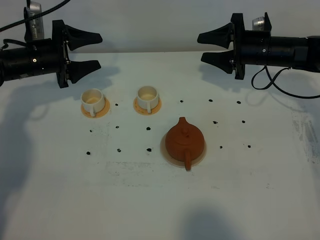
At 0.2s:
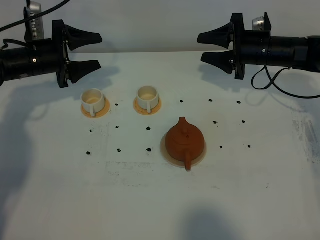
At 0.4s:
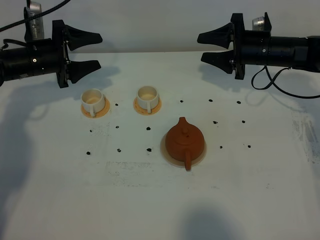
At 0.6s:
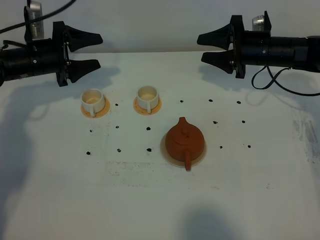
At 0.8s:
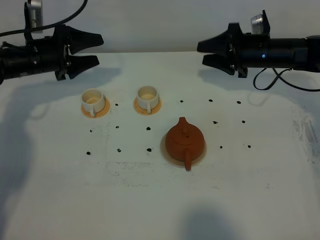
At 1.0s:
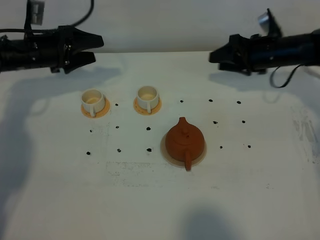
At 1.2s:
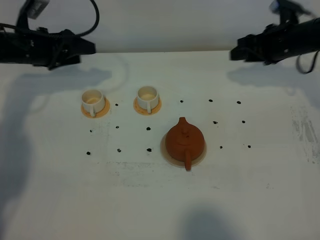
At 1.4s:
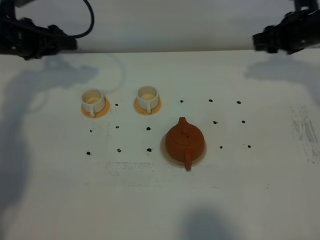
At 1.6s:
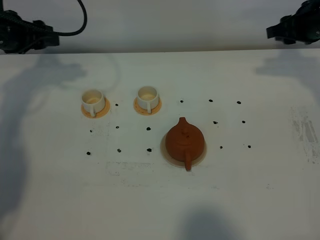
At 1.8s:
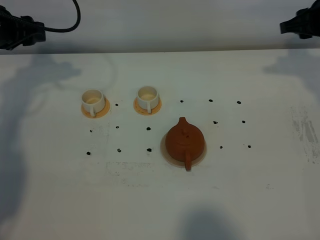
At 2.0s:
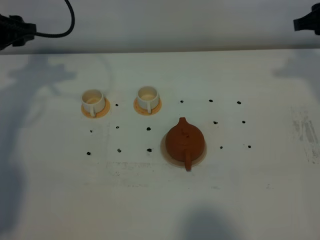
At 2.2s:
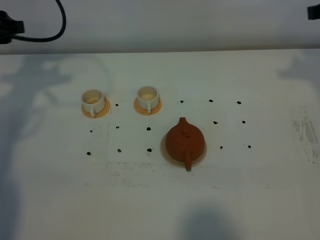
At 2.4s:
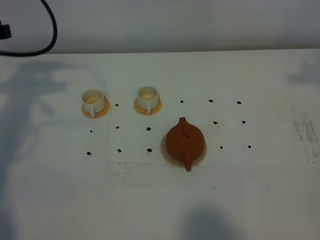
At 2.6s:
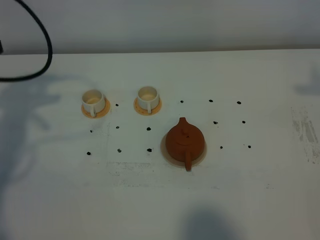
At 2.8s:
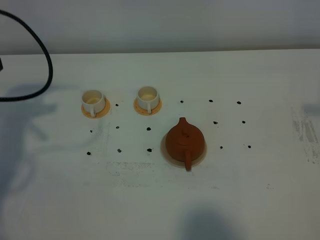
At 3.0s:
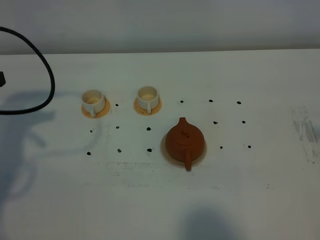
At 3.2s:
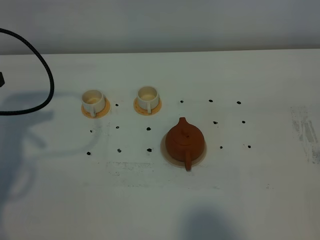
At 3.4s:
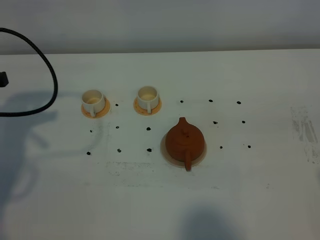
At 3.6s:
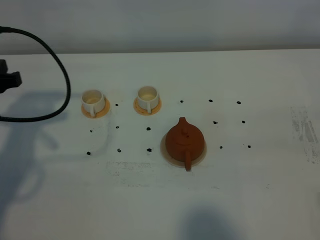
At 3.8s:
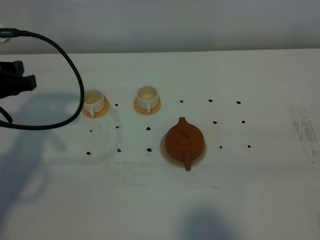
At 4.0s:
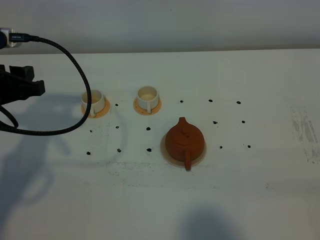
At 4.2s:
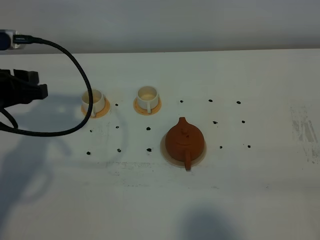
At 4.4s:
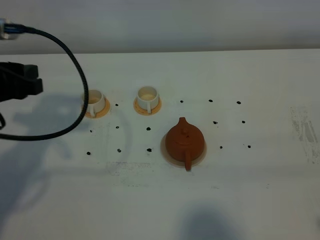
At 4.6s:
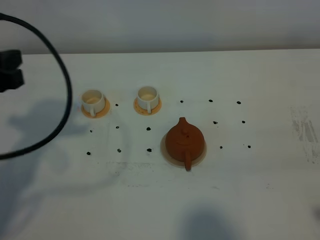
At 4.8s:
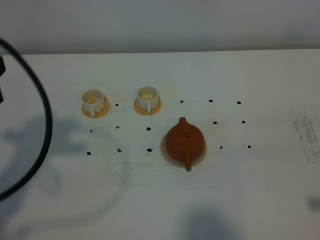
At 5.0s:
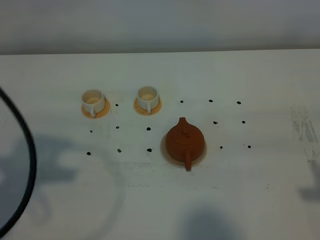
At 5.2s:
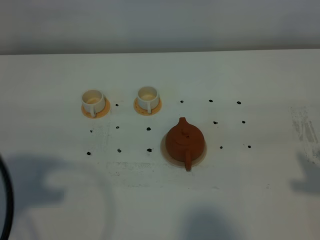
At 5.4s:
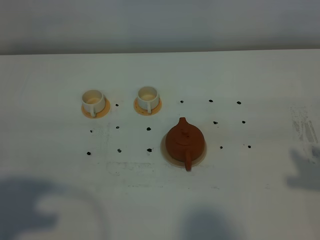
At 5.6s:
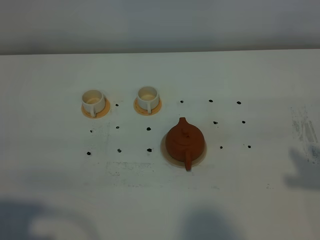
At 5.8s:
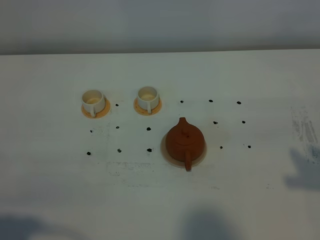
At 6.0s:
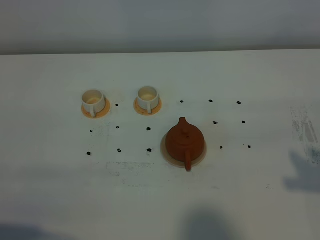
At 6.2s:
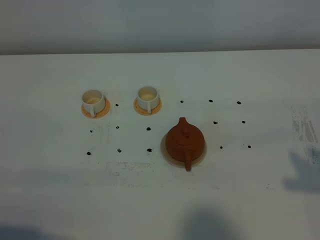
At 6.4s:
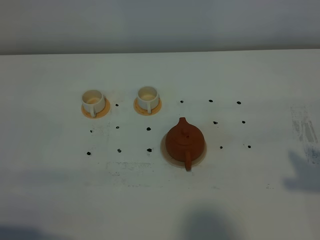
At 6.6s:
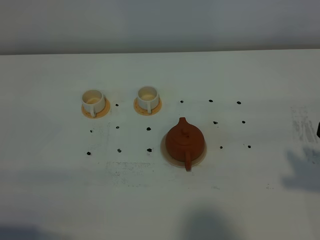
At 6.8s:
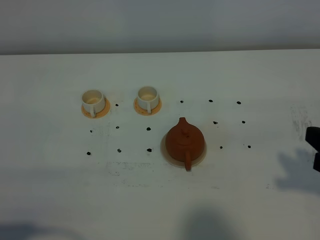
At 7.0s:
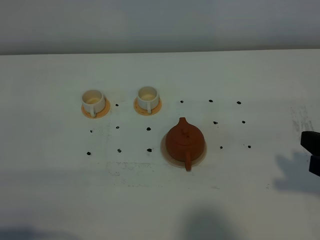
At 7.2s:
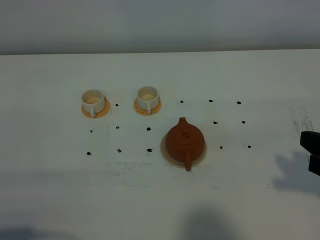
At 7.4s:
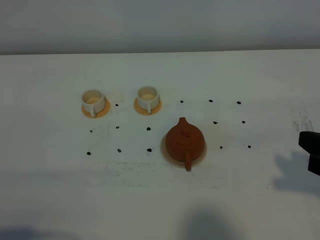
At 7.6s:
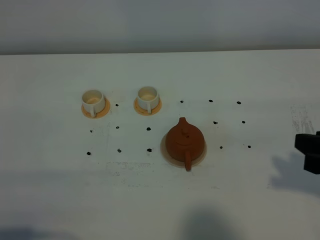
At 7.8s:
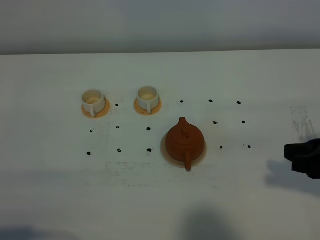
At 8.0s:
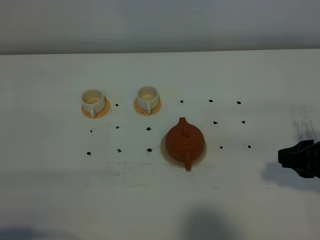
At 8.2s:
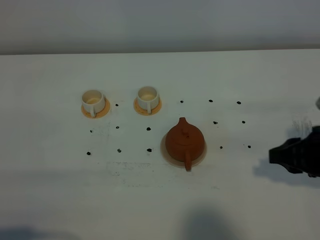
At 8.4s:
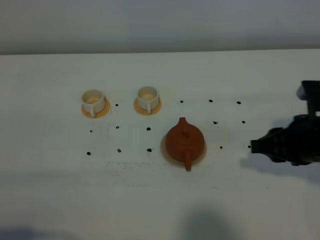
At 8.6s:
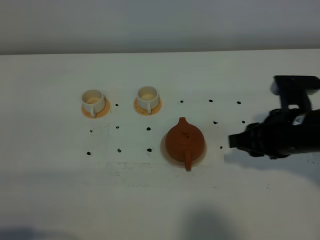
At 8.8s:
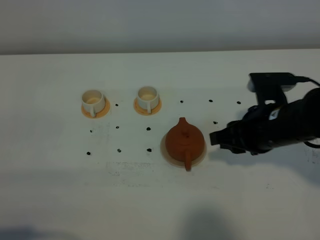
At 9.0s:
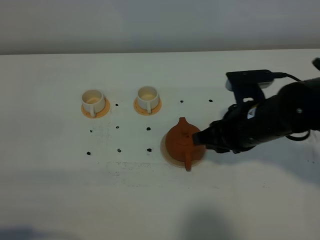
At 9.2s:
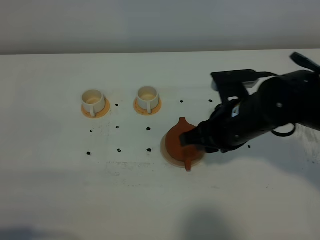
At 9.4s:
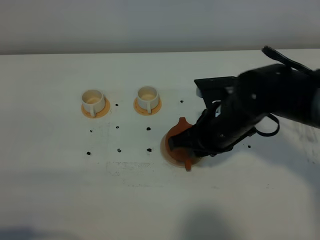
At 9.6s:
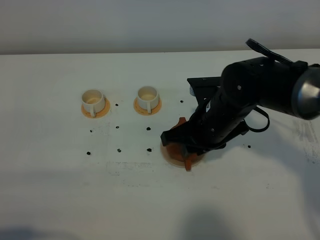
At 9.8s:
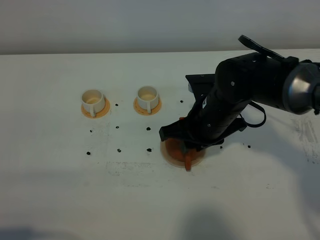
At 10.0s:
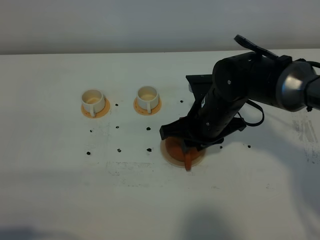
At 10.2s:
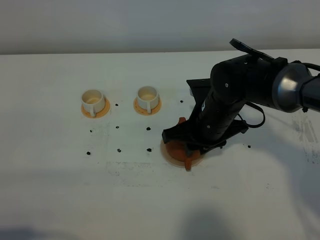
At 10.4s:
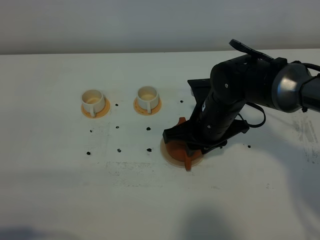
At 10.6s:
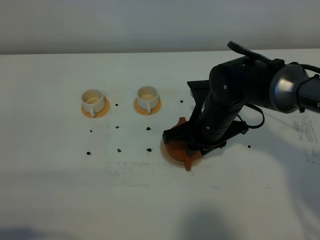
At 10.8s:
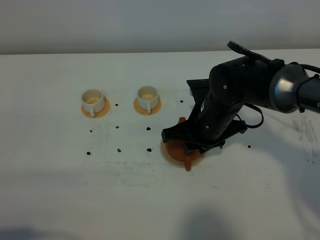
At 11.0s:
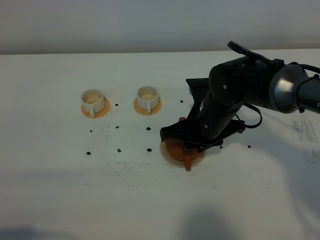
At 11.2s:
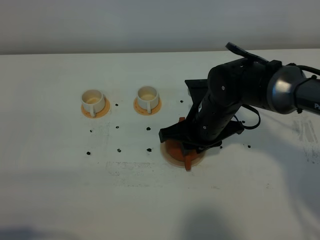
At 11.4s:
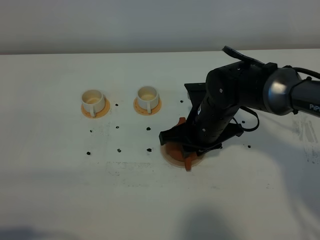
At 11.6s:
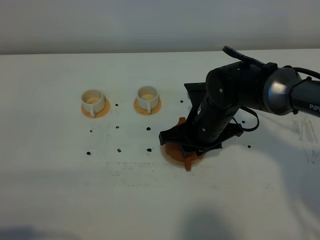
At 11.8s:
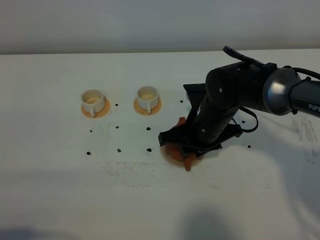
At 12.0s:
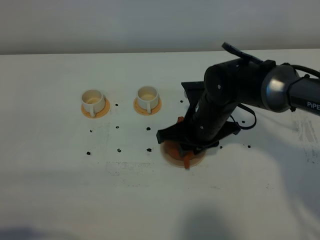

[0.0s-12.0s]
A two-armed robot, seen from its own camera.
Task of the whole recording: grasp the brown teapot and pour the tea into the two white teacups one by one, put the brown teapot back in its original place.
0.0s to 1.6s: The left gripper shifts approximately 10 cm upward, while the right gripper goes about 10 cm upward and to the right.
1.6s to 3.0s: The right gripper is displaced backward and upward by about 35 cm, while the left gripper moves backward, some 15 cm.
3.0s to 4.4s: The left gripper goes approximately 5 cm to the right.
4.4s to 6.0s: The left gripper shifts approximately 25 cm backward, and closes its fingers; the right gripper shifts some 10 cm forward.
6.0s to 7.6s: The grippers move only a little.
7.6s to 9.0s: The right gripper travels to the left, forward and downward by about 20 cm.
9.0s to 10.4s: The right gripper travels to the left by approximately 5 cm.
10.4s to 12.0s: There are only small adjustments of the grippers.

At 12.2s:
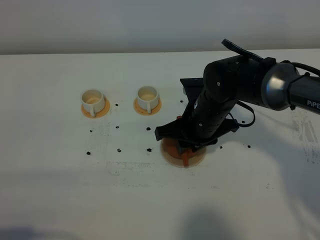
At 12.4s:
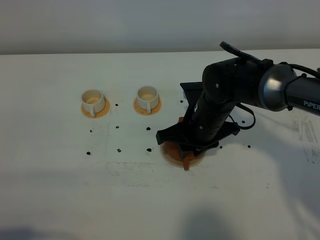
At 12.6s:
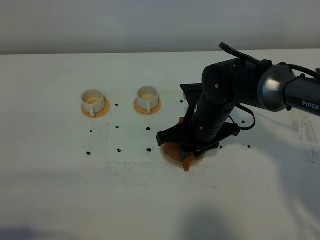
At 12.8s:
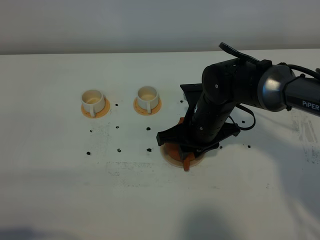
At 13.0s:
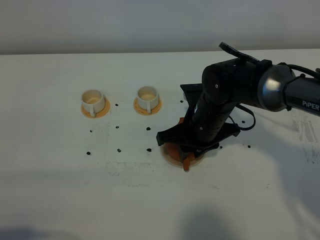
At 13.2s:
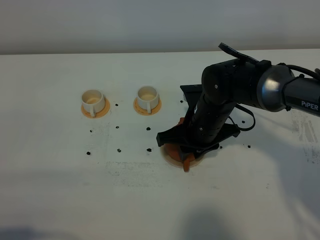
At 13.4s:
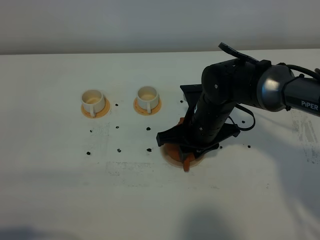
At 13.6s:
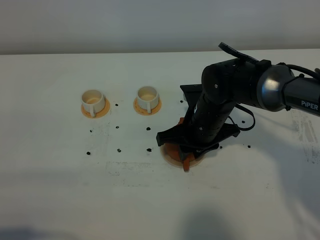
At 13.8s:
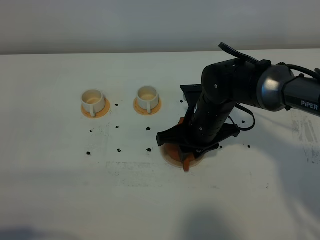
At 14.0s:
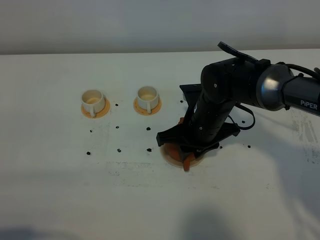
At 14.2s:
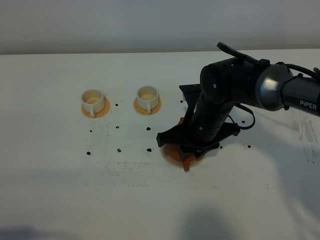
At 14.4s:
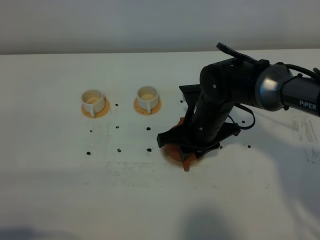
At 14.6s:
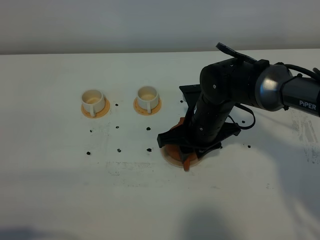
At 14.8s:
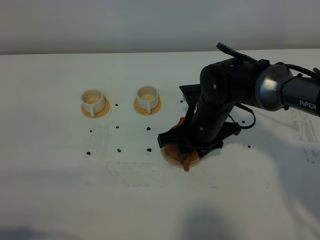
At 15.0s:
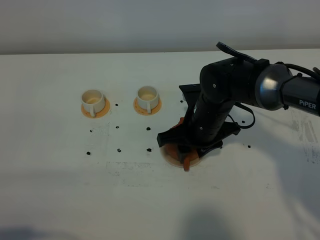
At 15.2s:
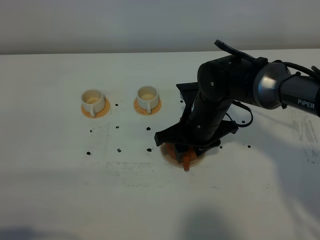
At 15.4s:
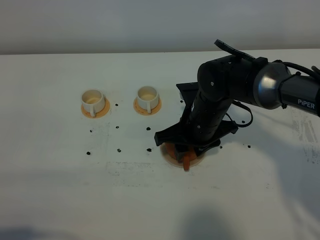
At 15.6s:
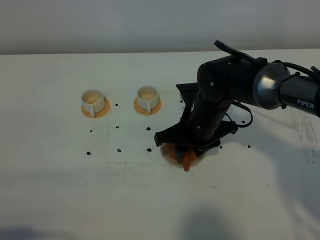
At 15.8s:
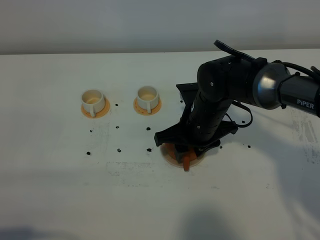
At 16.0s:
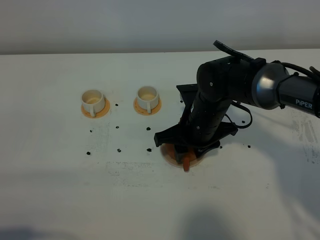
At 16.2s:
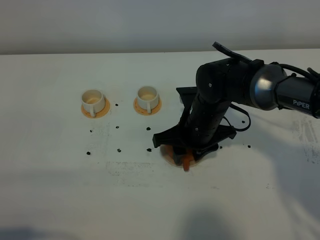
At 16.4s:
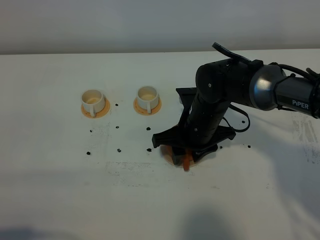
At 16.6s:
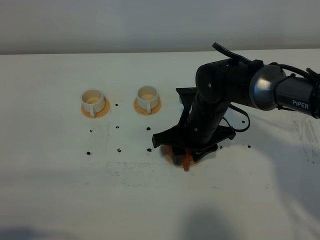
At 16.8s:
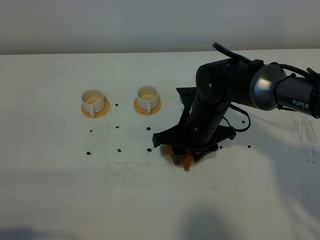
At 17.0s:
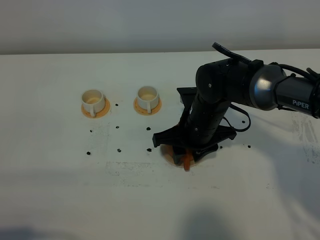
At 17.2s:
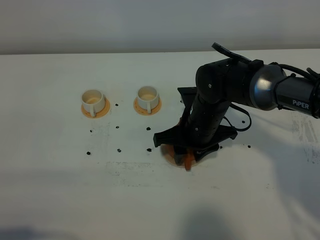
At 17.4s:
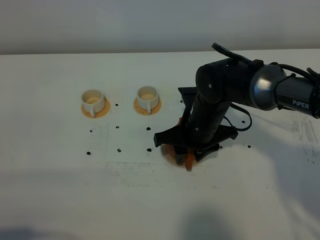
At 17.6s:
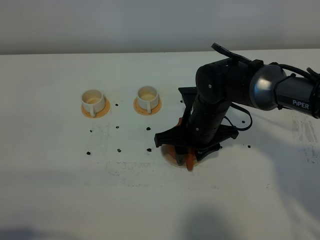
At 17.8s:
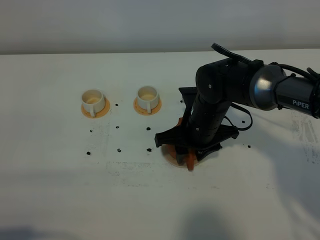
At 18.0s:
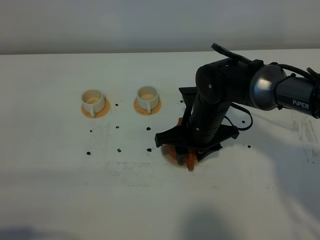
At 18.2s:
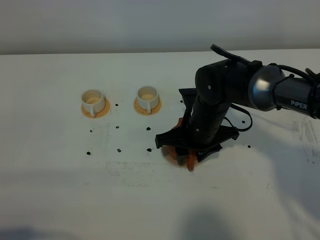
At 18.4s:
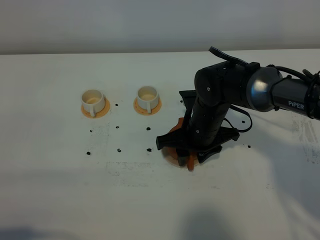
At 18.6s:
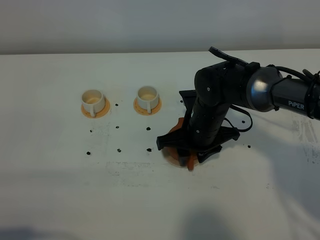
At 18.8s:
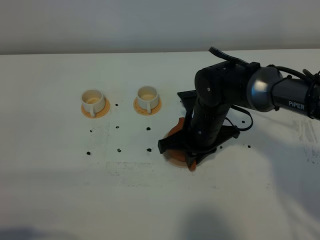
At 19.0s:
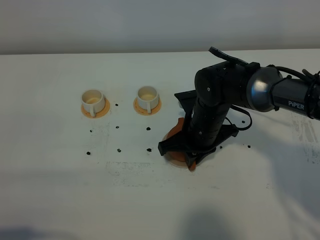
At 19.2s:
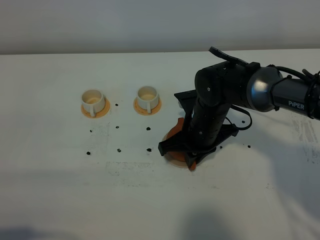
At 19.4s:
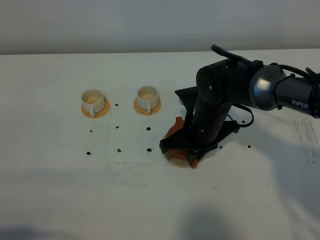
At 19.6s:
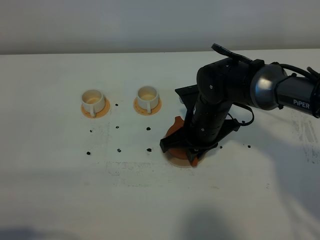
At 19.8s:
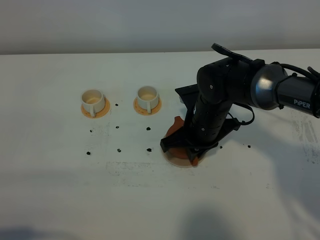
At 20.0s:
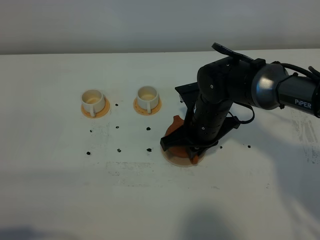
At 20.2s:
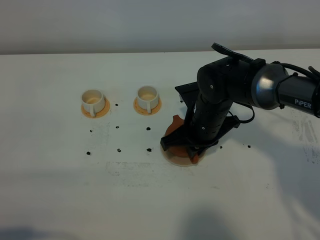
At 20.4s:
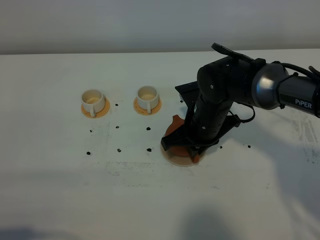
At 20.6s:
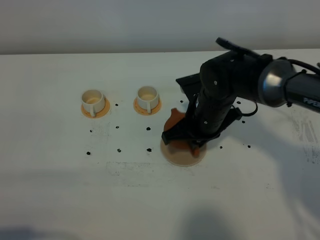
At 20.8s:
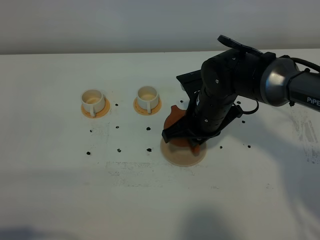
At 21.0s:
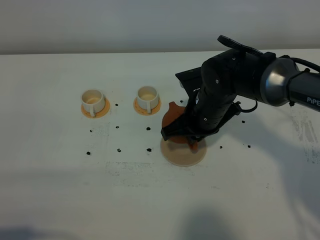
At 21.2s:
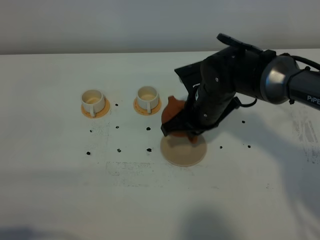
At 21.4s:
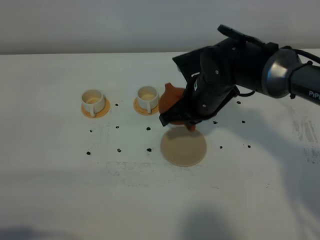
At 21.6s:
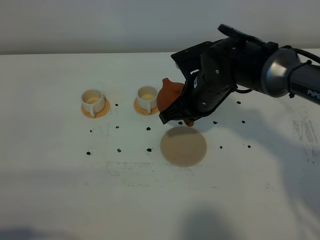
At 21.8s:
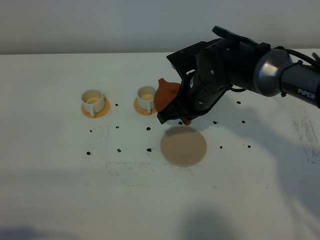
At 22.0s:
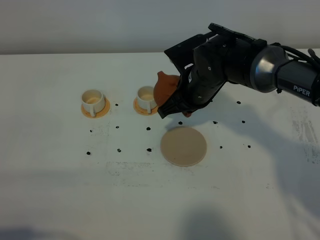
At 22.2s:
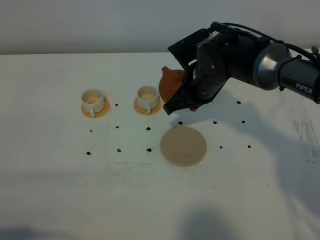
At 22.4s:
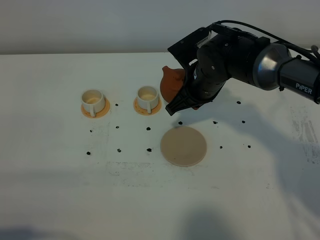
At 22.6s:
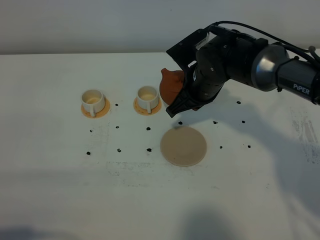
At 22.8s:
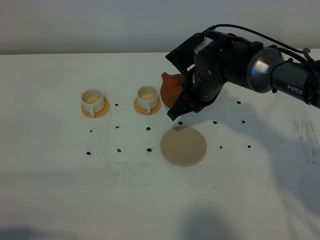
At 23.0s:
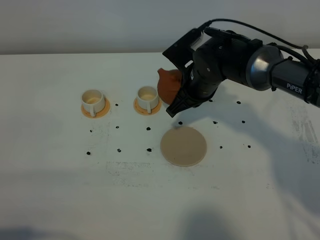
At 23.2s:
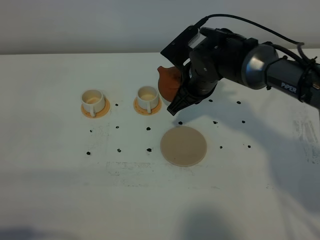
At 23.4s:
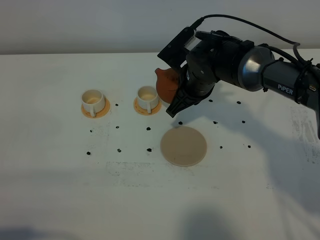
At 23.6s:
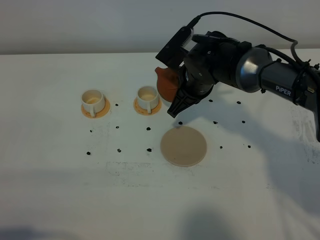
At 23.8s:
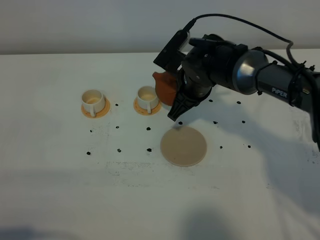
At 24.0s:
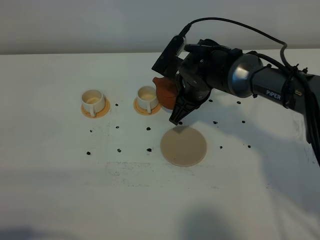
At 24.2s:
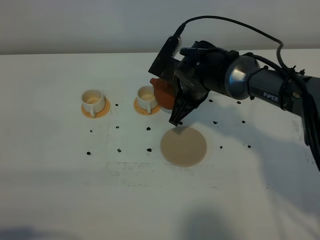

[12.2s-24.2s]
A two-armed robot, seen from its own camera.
Task of the whole recording: grasp the brown teapot and pour the tea into the two white teacups one by one, put the brown teapot back in its original place.
Step, 12.2s to 20.6s: Pick up the teapot with the right gripper.
12.2s to 15.2s: Both grippers stay about where they are.
15.2s to 18.2s: Neither gripper changes place.
18.2s to 19.8s: The right gripper closes up.
19.8s to 21.2s: The grippers make only small movements.
21.2s to 22.6s: There are only small adjustments of the grippers.
